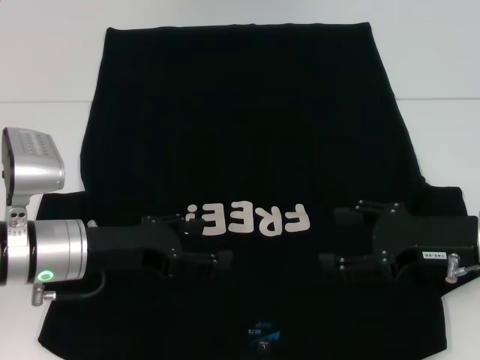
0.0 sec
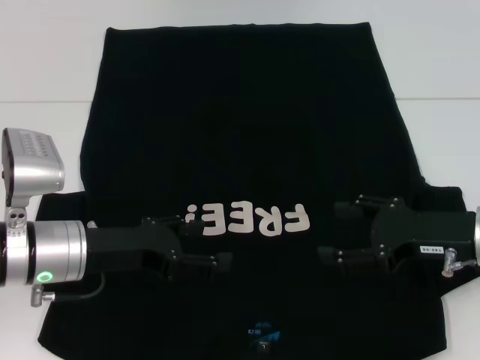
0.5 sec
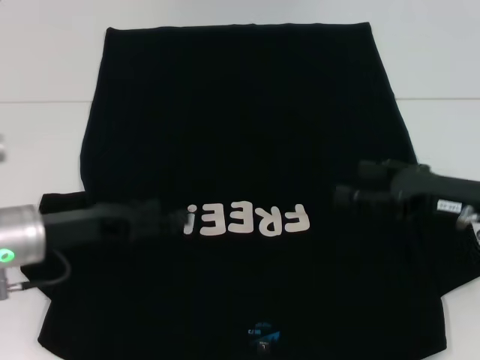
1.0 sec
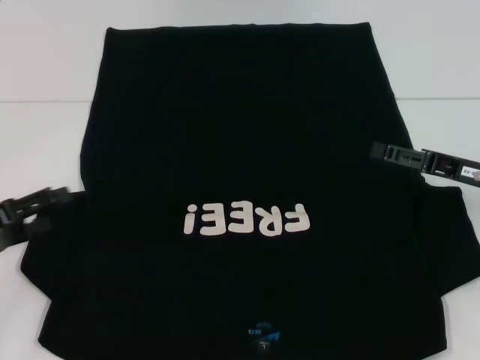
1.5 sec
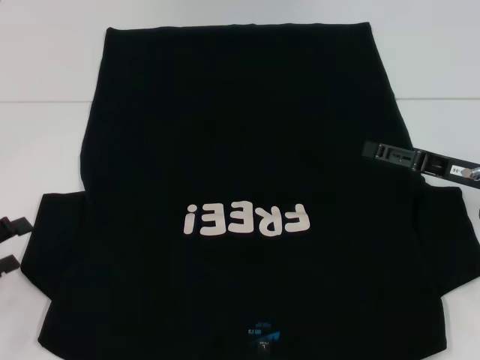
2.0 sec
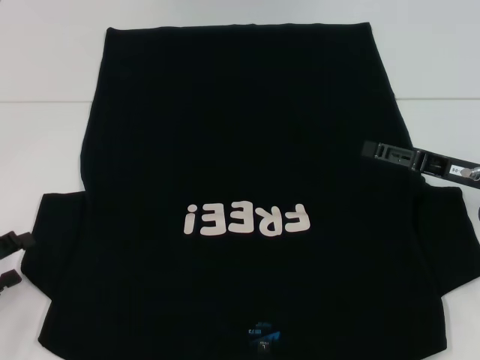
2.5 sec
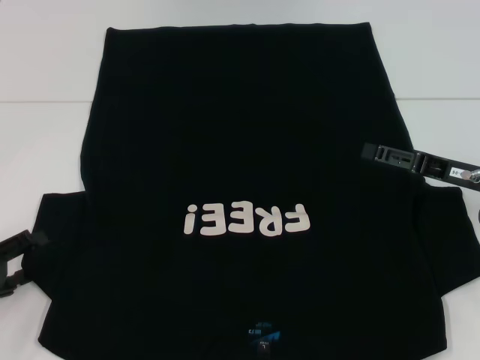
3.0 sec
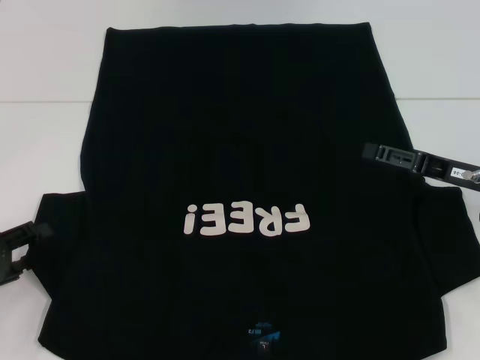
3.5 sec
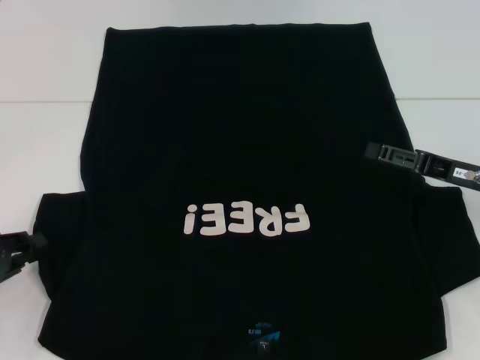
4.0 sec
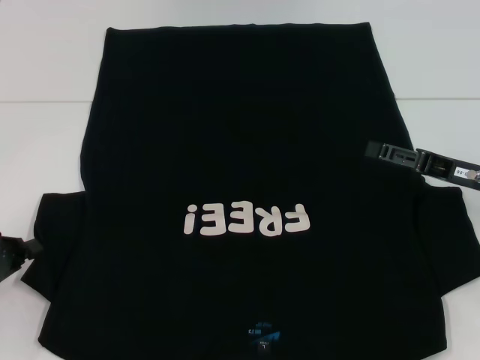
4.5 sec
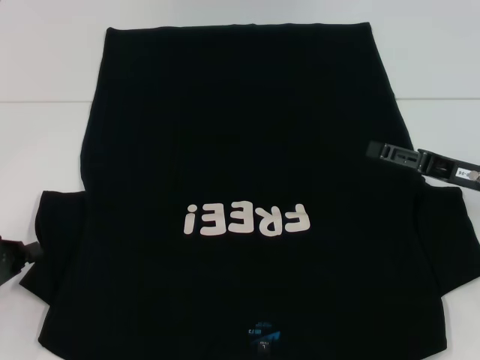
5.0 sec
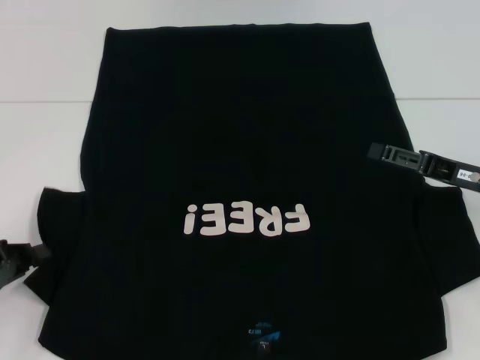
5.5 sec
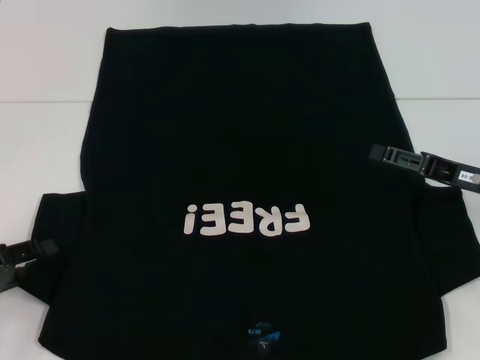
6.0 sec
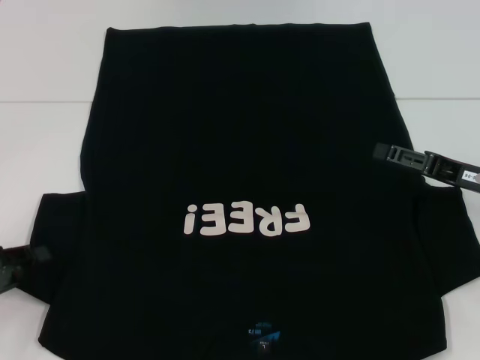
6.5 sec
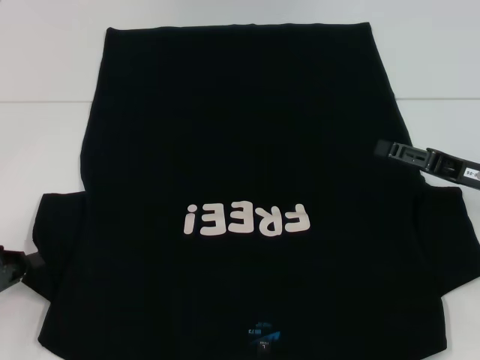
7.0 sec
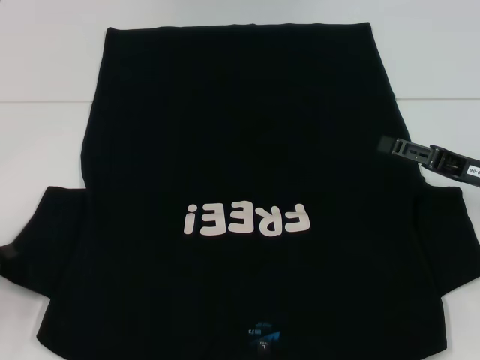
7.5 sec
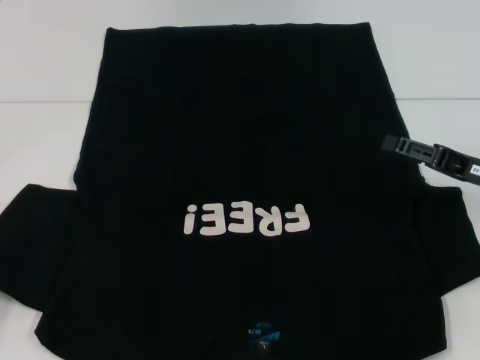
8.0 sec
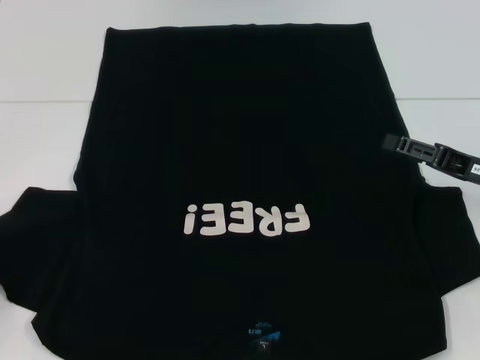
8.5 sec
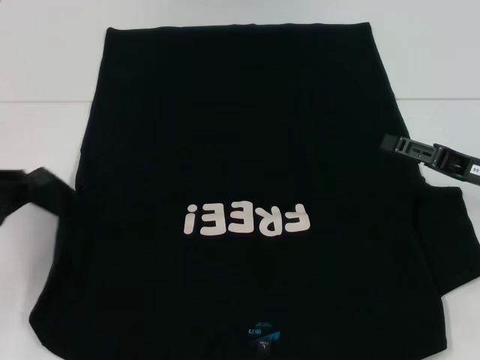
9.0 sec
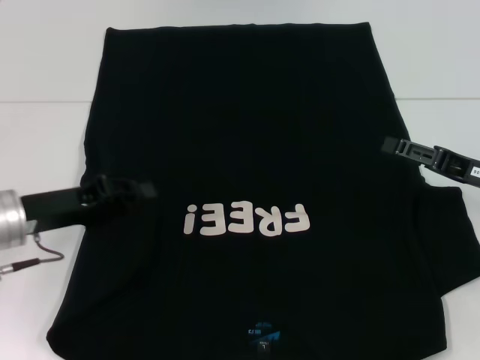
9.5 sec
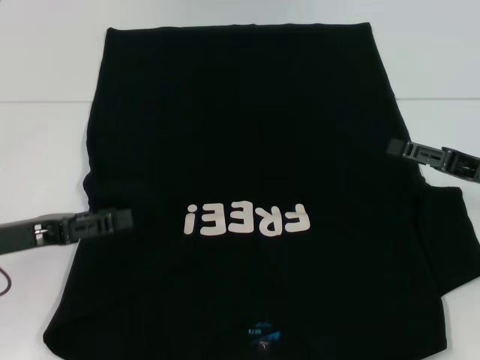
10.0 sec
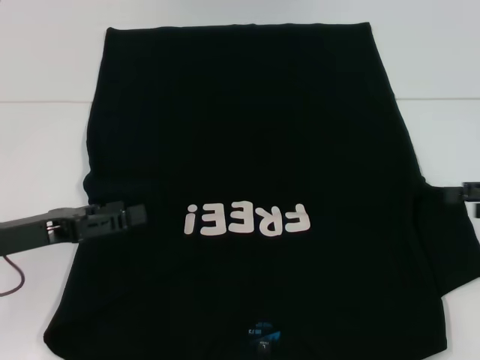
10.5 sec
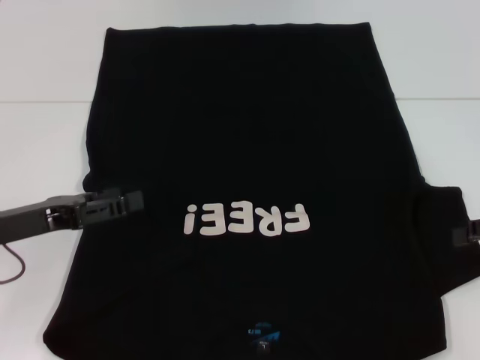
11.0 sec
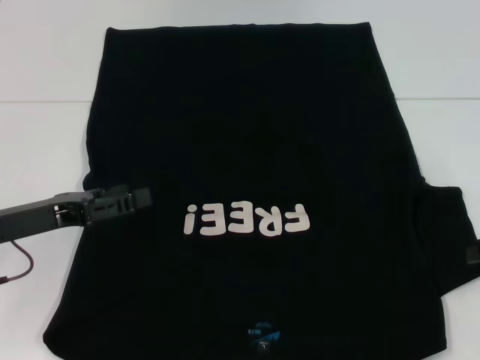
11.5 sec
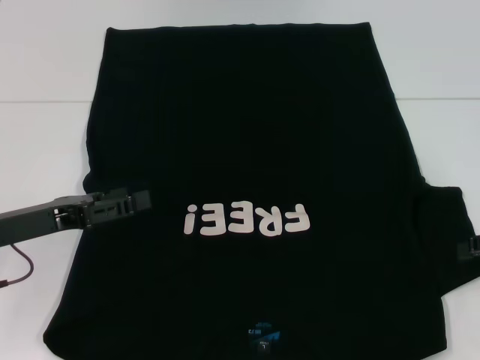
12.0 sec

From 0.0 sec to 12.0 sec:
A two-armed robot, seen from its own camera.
Step, from 0.0 sec to 10.0 sec: Fold the bottom left sleeve with your left hand.
From 0.0 sec to 2.0 sec: The left gripper heads to the left and backward, covering approximately 20 cm; the right gripper ends up some 5 cm from where it was.
From 2.0 sec to 4.0 sec: The left gripper closes.
From 4.0 sec to 8.0 sec: There are only small adjustments of the grippers.
From 8.0 sec to 10.0 sec: The left gripper travels to the right and forward by some 10 cm, and opens.
From 10.0 sec to 12.0 sec: The right gripper moves to the right, about 5 cm, while the left gripper opens its fingers.

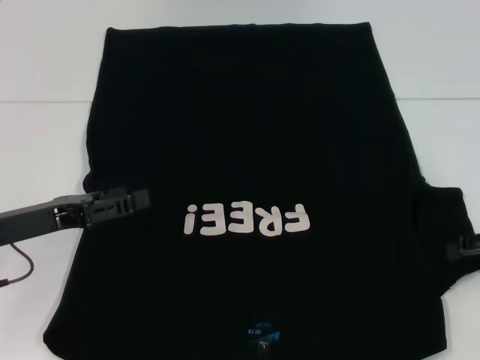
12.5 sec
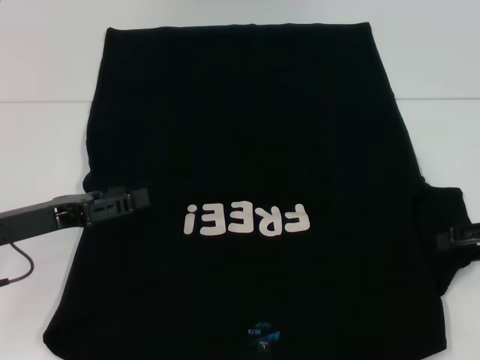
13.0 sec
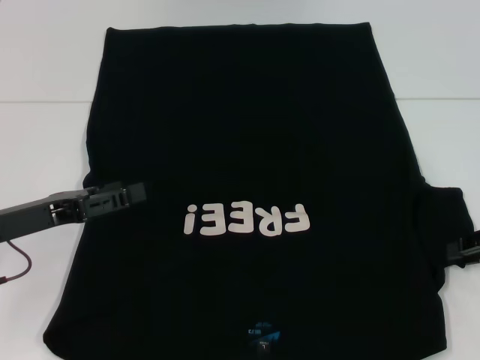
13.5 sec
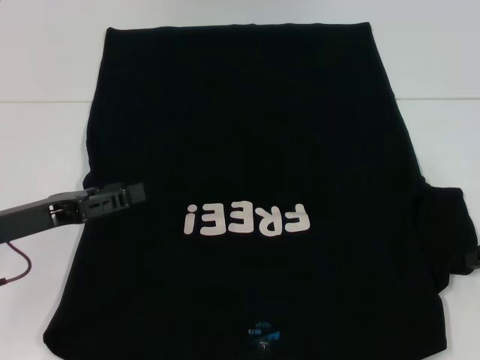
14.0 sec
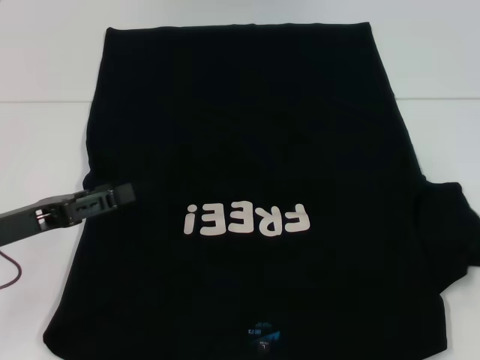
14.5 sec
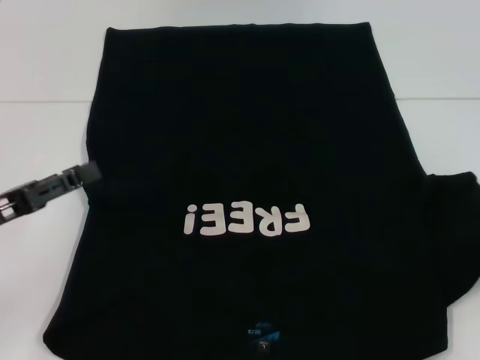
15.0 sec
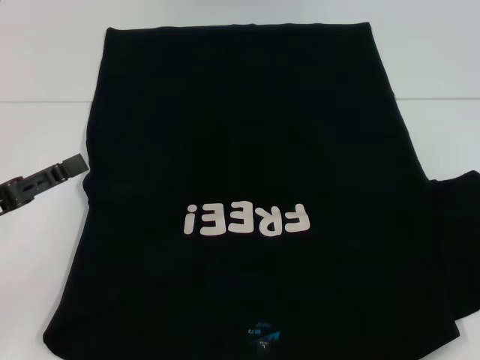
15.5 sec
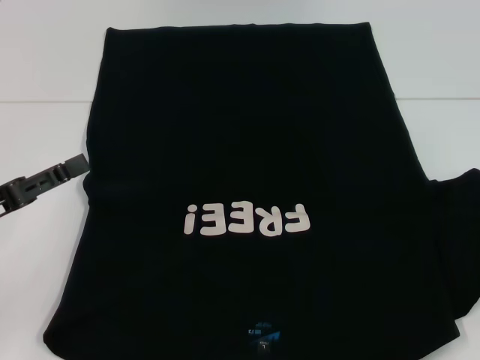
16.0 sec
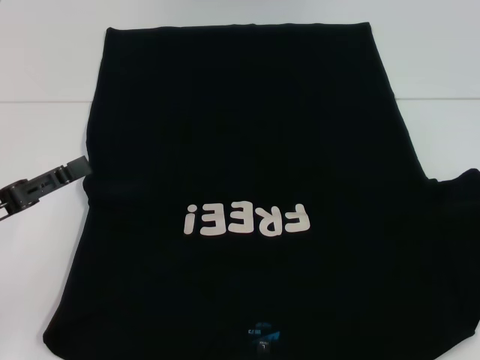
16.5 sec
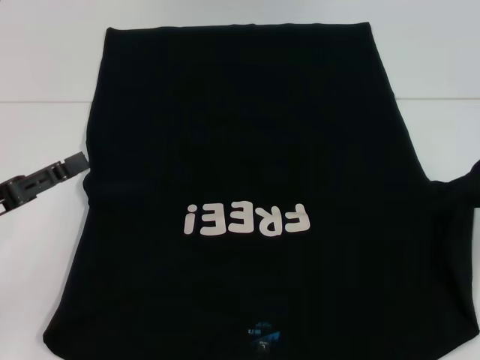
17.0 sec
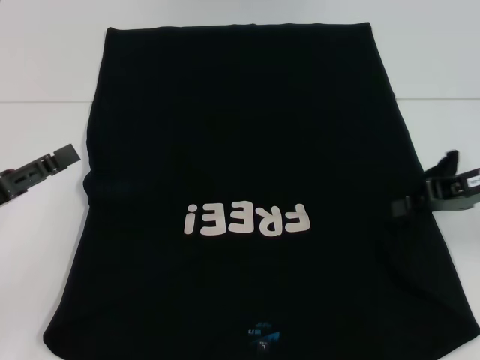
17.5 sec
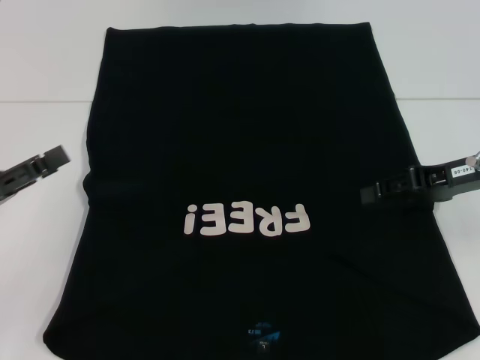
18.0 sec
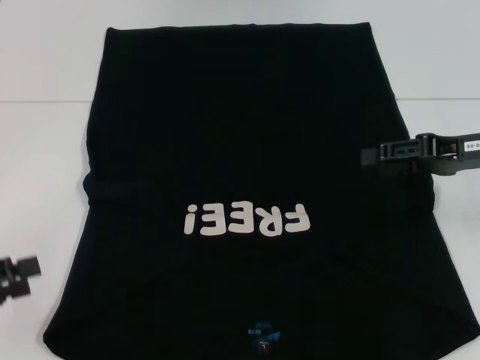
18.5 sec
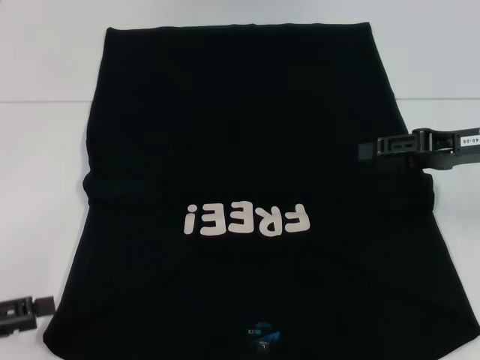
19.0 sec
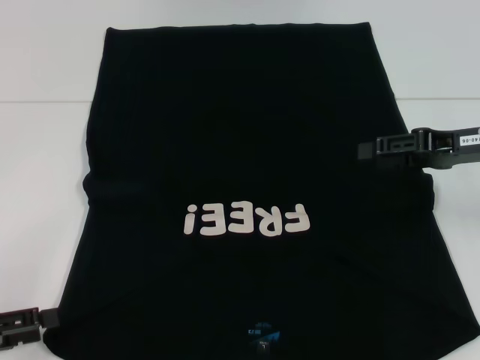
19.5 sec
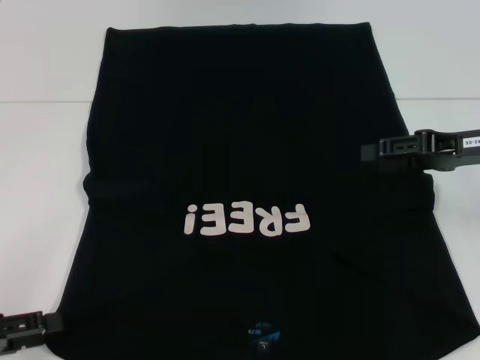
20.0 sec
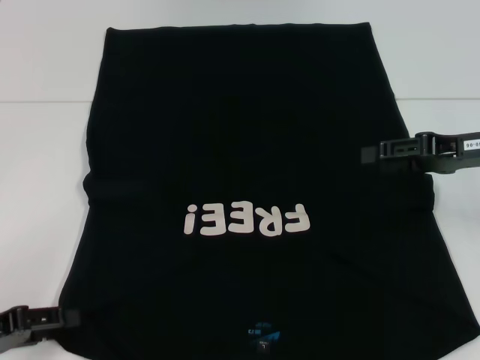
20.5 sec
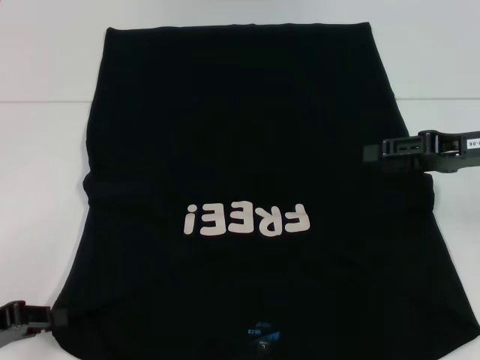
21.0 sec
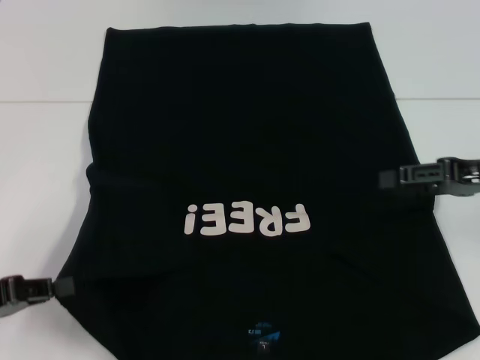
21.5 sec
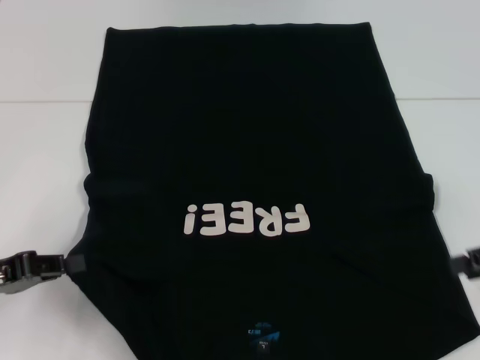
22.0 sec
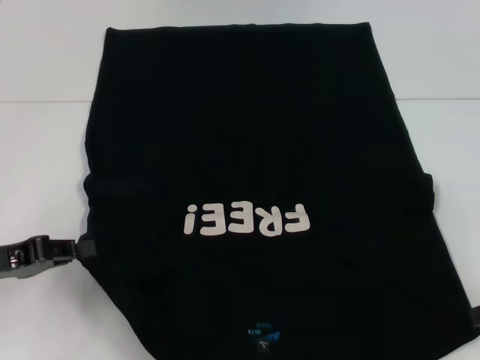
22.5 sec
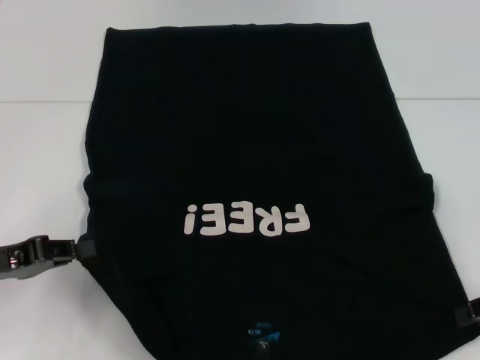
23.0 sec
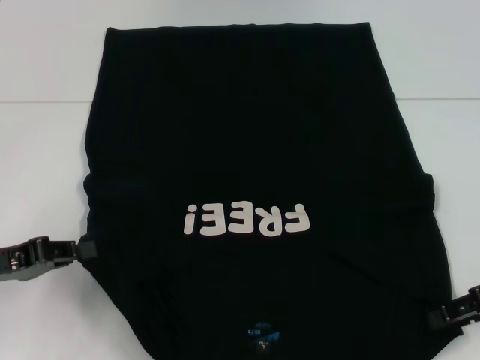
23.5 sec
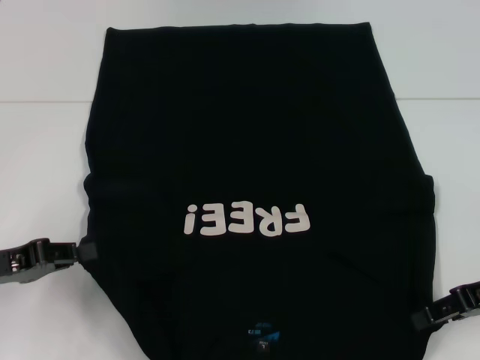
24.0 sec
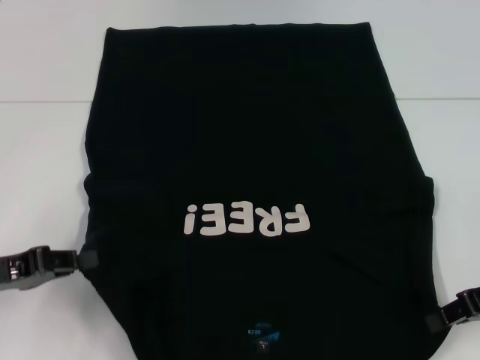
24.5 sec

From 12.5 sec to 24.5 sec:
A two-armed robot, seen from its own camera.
Step, from 12.5 sec to 18.0 sec: Fold the bottom right sleeve with your right hand.
Step, from 18.5 sec to 21.0 sec: Grab the bottom left corner with your left hand.
From 12.5 sec to 14.5 sec: The right gripper closes its fingers.
From 14.5 sec to 16.5 sec: The right gripper changes place by some 5 cm.
From 16.5 sec to 18.5 sec: The left gripper travels to the left and backward by roughly 5 cm. The right gripper is displaced to the left by about 10 cm, and opens up.
From 18.5 sec to 20.5 sec: The left gripper shifts some 5 cm downward.
From 20.5 sec to 22.5 sec: The left gripper ends up about 5 cm from where it was, and closes its fingers. Meanwhile the right gripper is displaced backward and to the right by roughly 10 cm.
From 22.5 sec to 24.5 sec: The right gripper heads to the left, covering roughly 5 cm, and closes up.

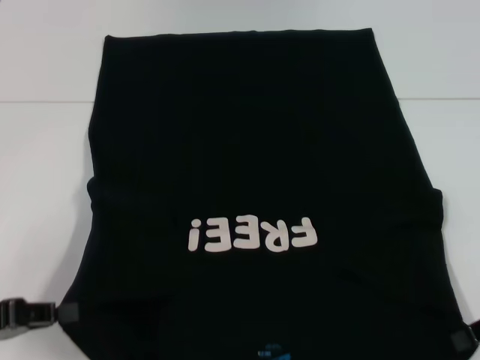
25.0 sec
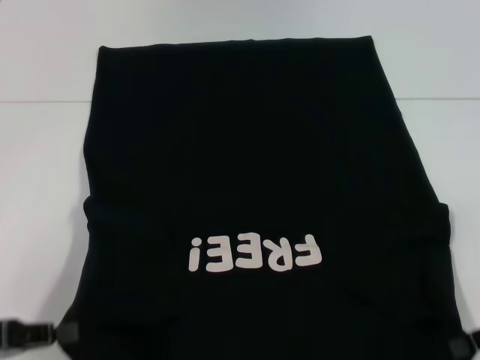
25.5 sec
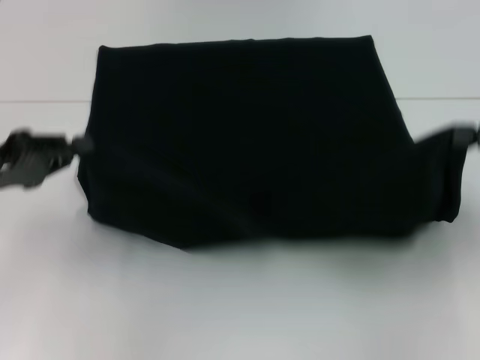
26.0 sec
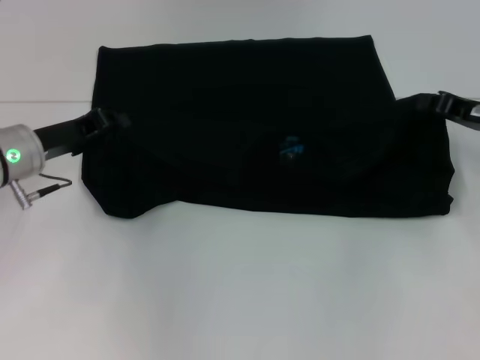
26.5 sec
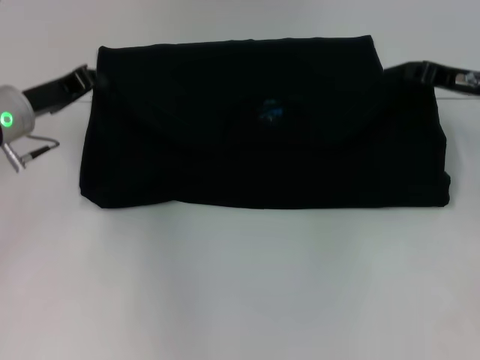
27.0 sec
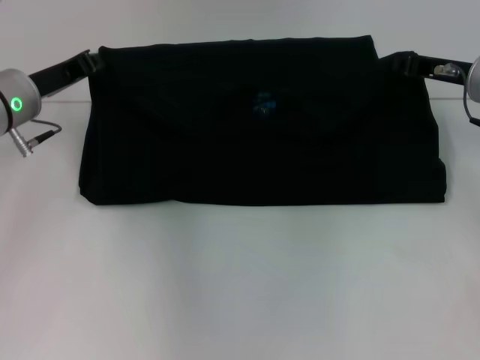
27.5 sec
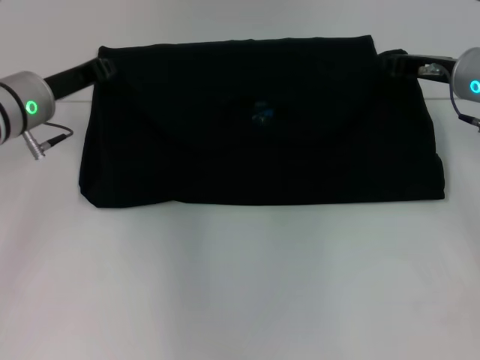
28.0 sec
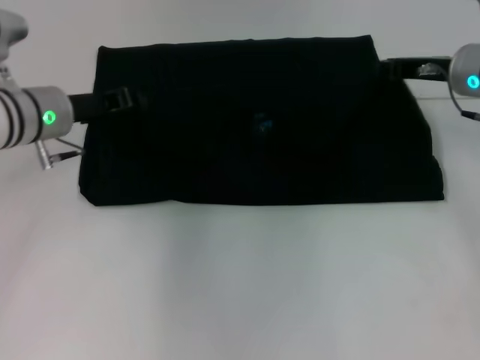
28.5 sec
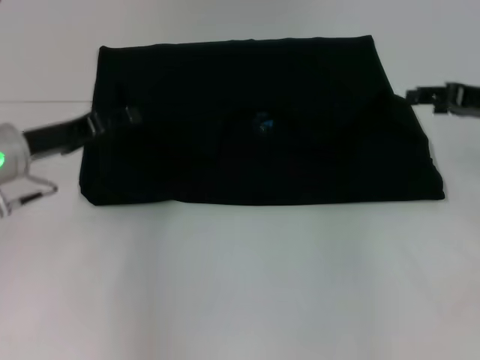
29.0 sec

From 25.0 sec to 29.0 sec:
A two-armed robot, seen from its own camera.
Step, from 25.5 sec to 29.0 sec: Fold the clothes with your left hand.
Step, from 25.5 sec to 29.0 sec: Fold the clothes with your right hand.
From 25.0 sec to 27.0 sec: The left gripper heads forward and to the right, covering approximately 20 cm. Meanwhile the right gripper is displaced forward by approximately 15 cm.
From 27.0 sec to 29.0 sec: The right gripper opens its fingers; the left gripper opens up.
